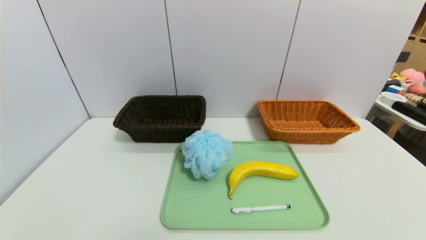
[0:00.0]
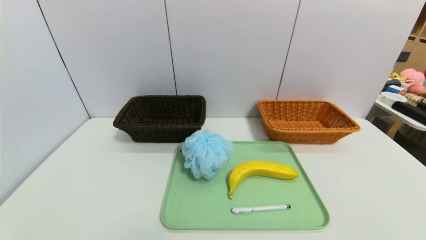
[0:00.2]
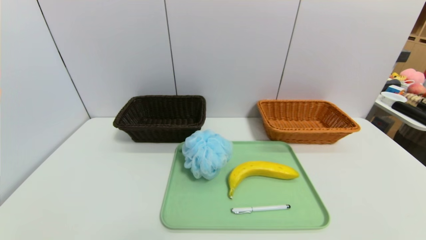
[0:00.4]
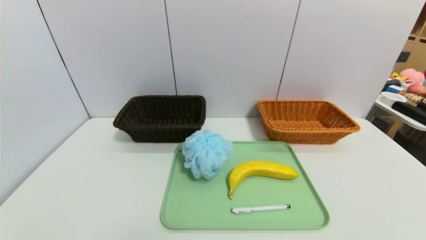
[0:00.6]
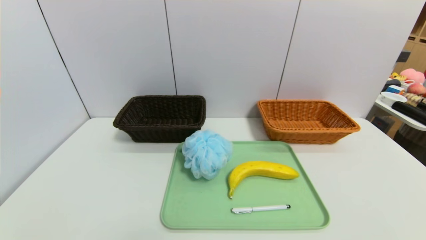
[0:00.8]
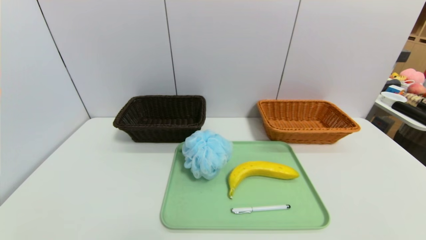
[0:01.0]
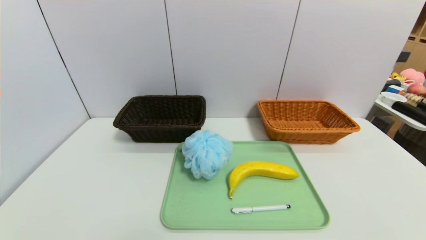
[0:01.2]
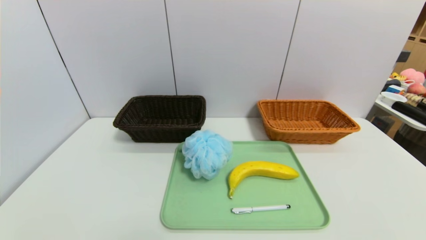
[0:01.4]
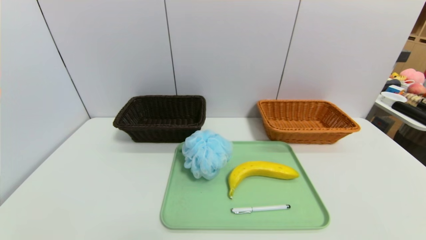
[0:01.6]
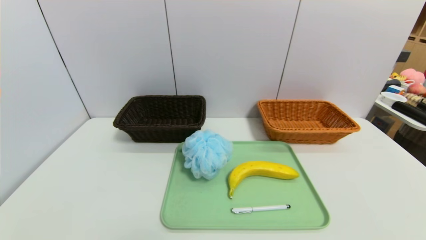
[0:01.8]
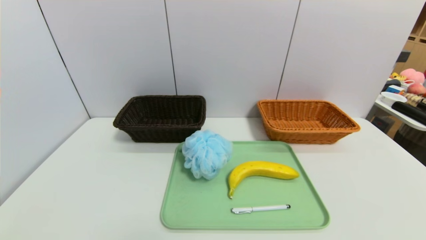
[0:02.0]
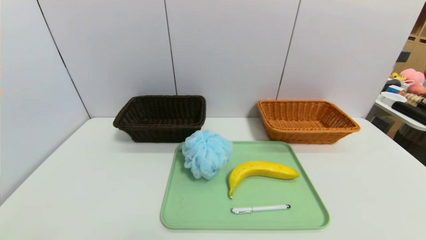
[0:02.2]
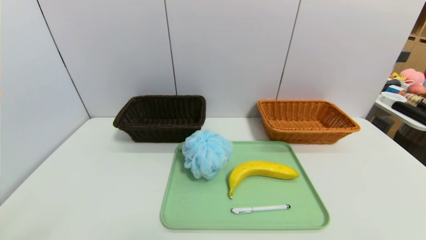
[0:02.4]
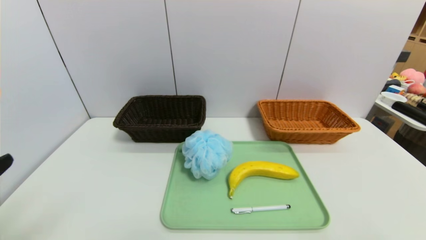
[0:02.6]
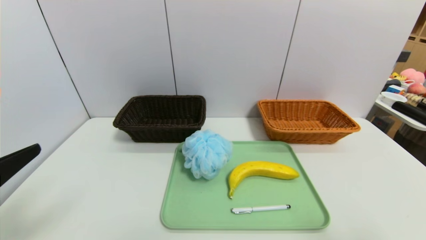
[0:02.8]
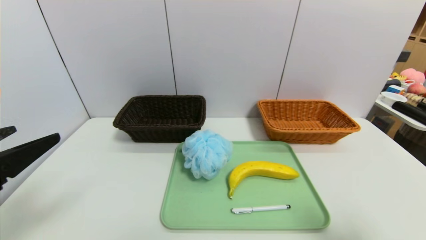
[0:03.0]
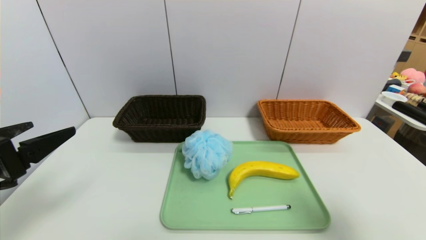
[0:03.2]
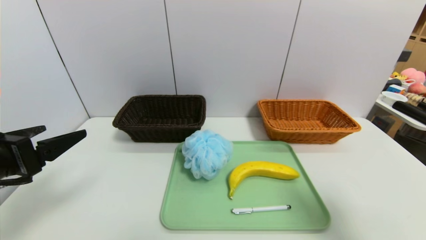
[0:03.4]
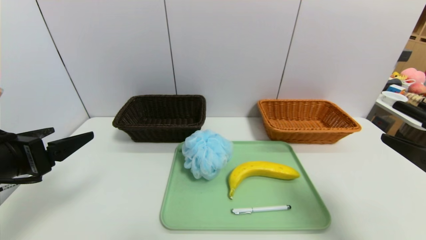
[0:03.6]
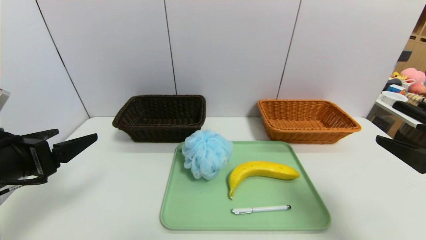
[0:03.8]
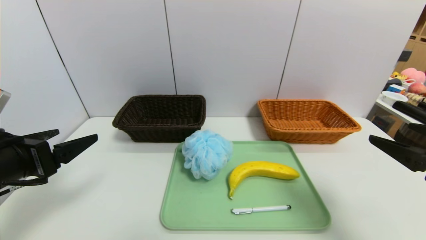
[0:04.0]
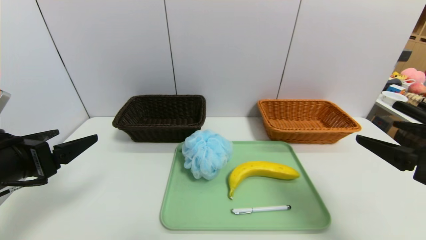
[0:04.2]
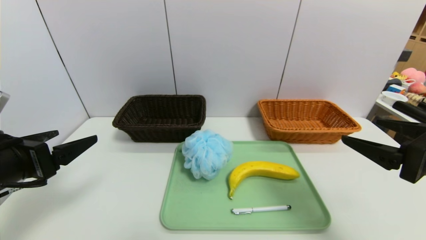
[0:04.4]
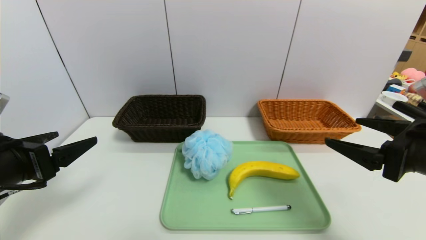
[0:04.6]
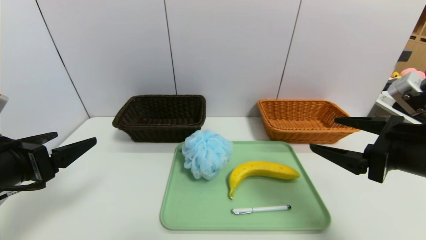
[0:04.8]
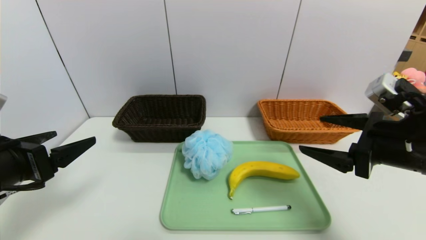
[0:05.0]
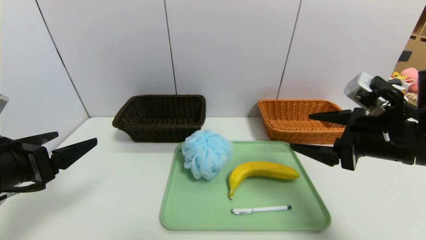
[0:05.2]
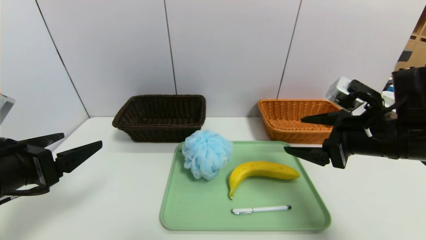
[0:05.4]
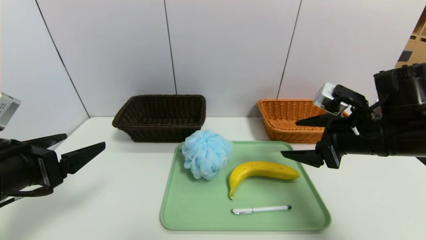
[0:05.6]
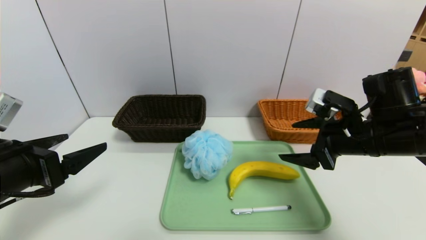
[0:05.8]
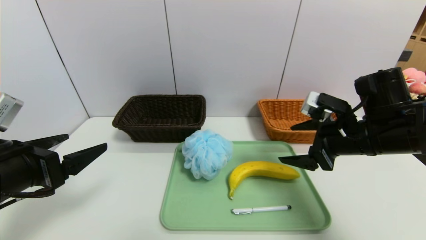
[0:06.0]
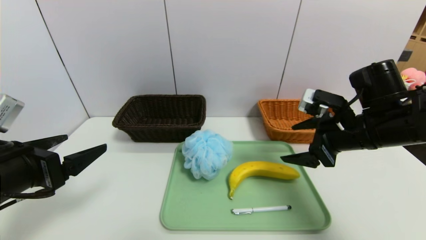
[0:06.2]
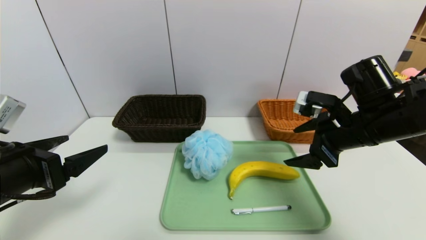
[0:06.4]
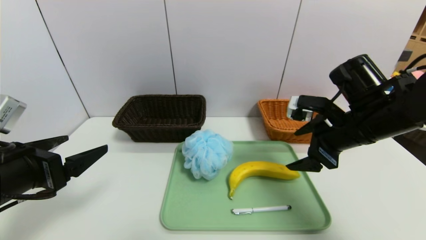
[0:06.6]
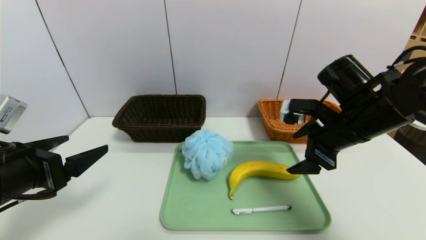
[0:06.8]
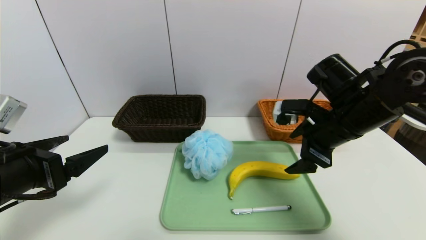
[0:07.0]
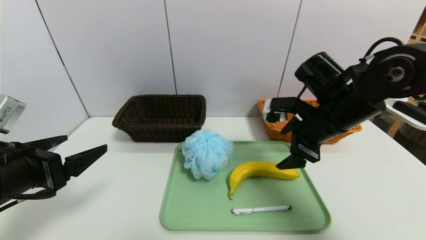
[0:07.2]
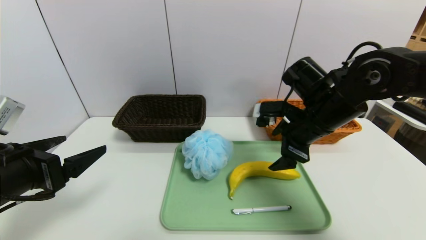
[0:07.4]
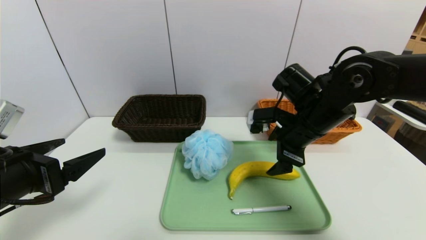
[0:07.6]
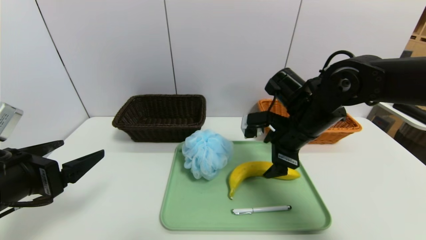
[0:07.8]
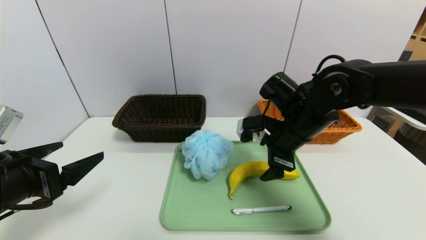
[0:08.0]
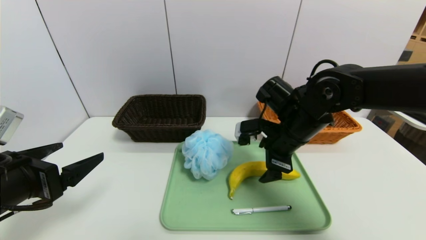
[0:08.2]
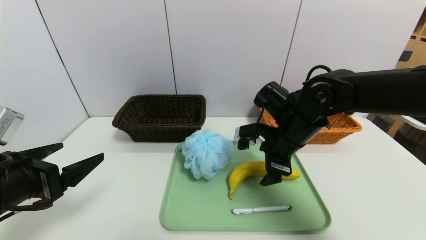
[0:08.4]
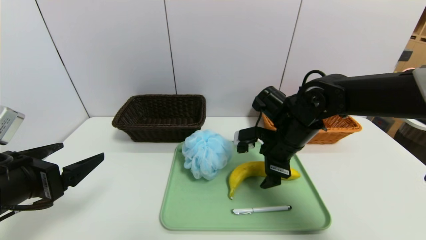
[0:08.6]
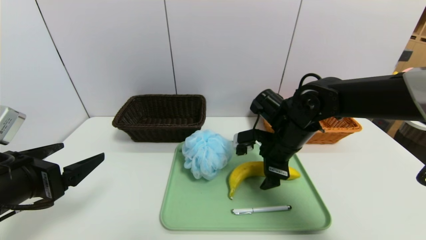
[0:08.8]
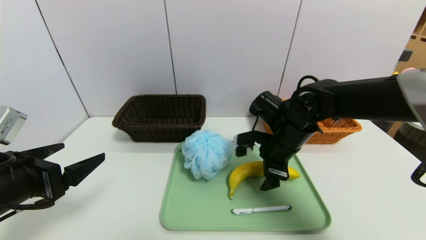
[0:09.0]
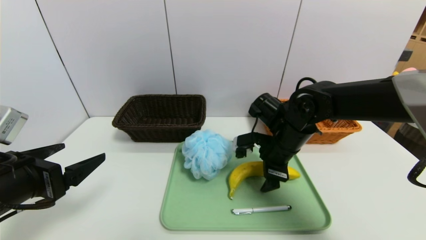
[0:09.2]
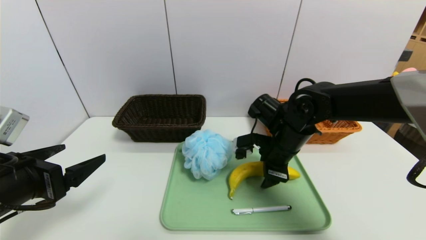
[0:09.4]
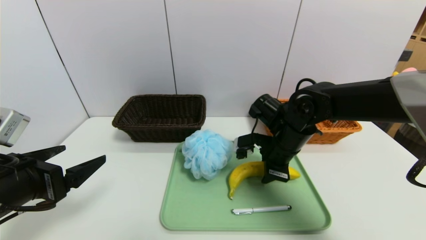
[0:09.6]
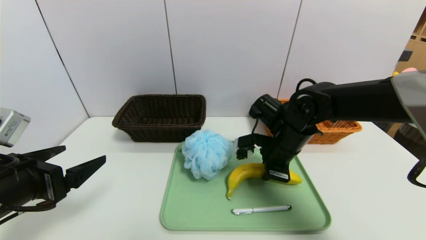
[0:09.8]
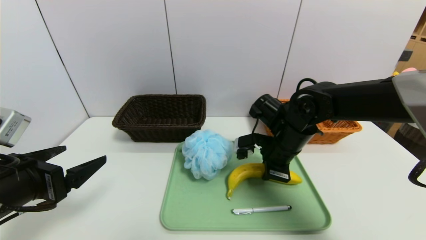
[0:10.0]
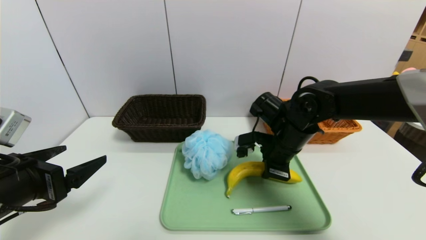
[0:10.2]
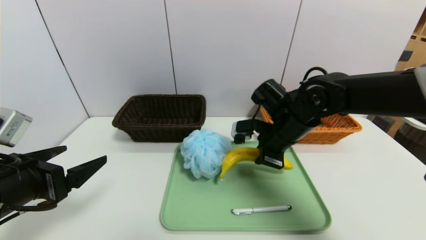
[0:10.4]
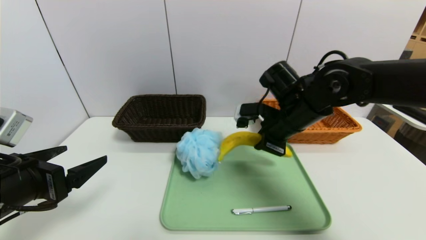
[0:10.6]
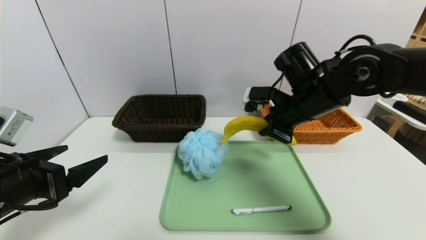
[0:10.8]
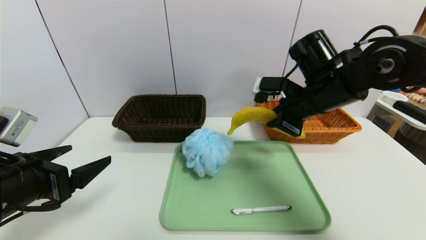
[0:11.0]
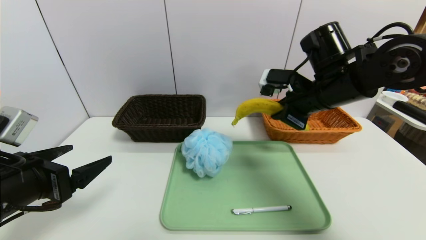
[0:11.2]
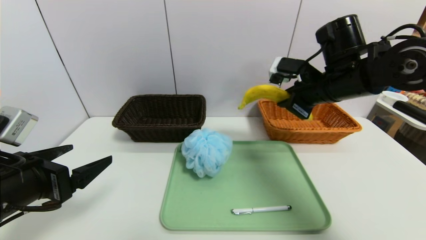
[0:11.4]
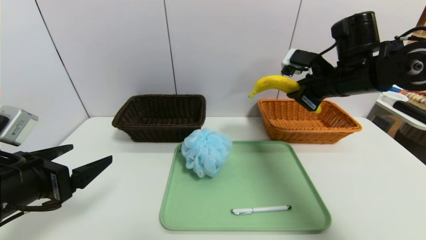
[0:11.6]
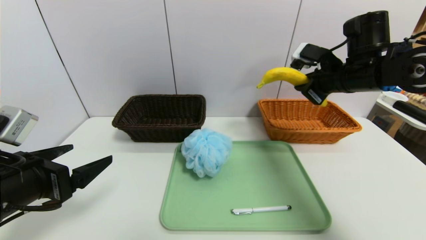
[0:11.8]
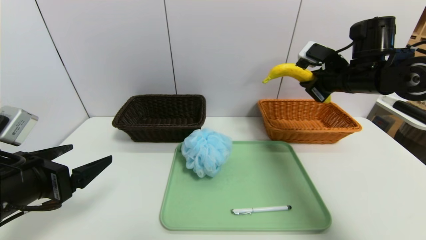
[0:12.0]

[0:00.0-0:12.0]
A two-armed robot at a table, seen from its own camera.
Task of the whole recording: place the food in the right basket with the right gripper, and place the non food items in the left basket with the left gripper.
0:00.0 to 0:01.6: The two grippers keep their place.
0:01.6 to 0:03.0: The two grippers go about 20 cm upward and forward.
0:03.0 to 0:04.4: The right gripper goes roughly 10 cm forward. Meanwhile the left gripper moves forward, roughly 5 cm.
0:04.4 to 0:06.0: The right gripper travels forward by some 10 cm.
0:06.0 to 0:07.6: The right gripper heads to the left, covering approximately 10 cm.
0:07.6 to 0:09.0: The right gripper shifts about 5 cm downward.
0:09.0 to 0:10.4: The right gripper closes.
0:10.4 to 0:12.0: The right gripper shifts roughly 15 cm to the right and upward.

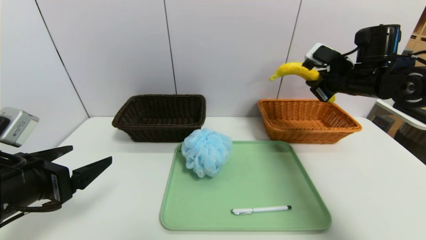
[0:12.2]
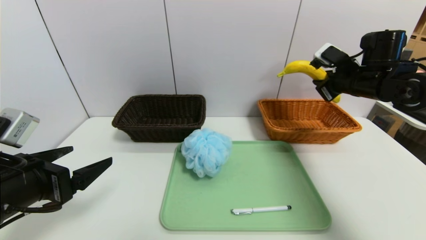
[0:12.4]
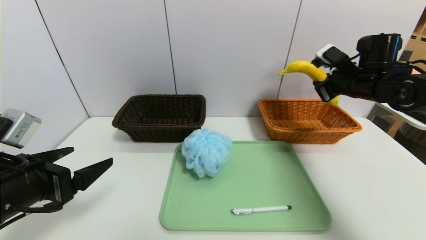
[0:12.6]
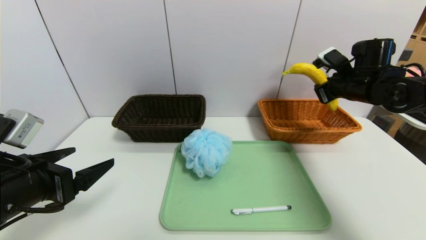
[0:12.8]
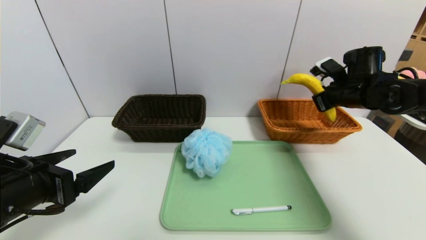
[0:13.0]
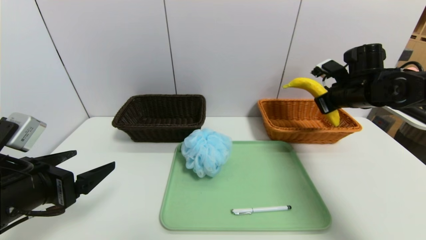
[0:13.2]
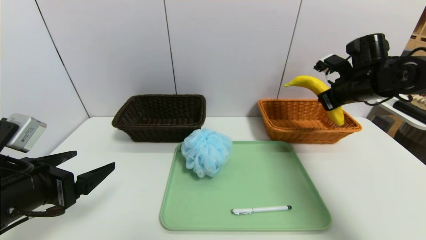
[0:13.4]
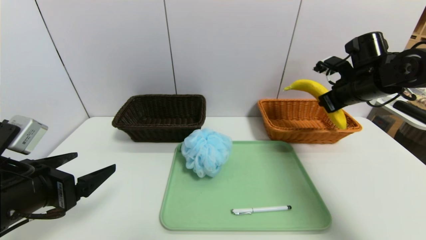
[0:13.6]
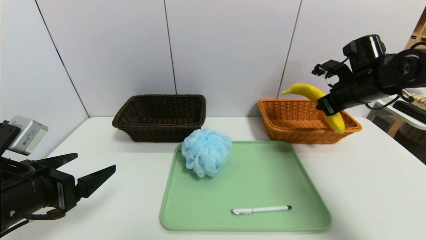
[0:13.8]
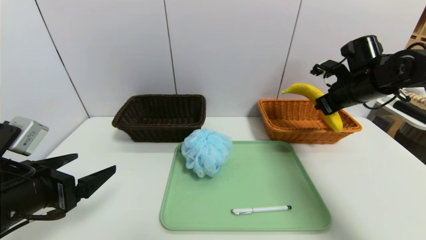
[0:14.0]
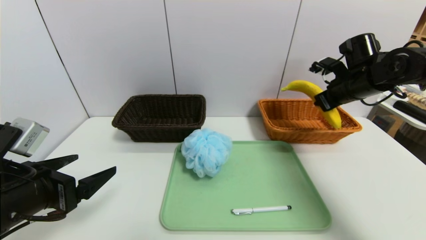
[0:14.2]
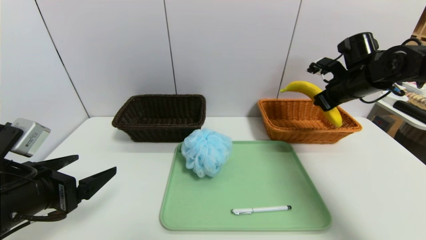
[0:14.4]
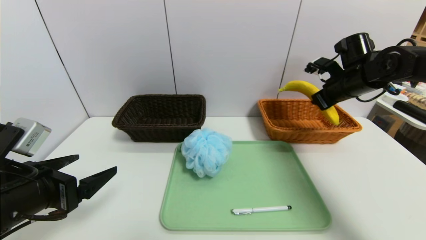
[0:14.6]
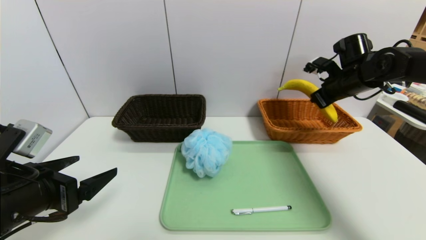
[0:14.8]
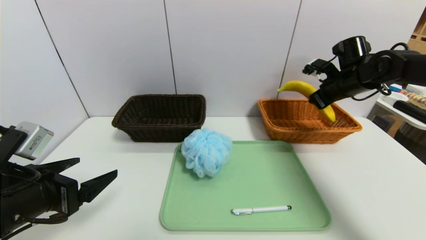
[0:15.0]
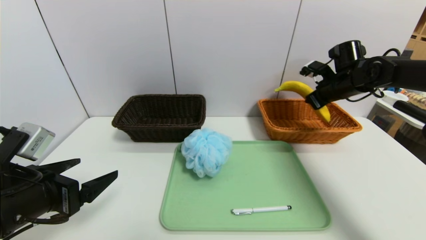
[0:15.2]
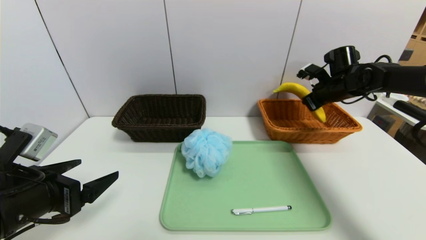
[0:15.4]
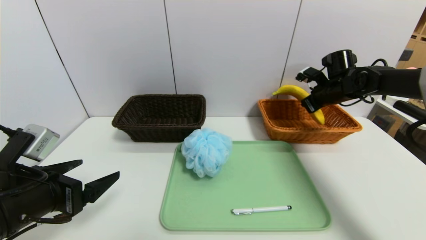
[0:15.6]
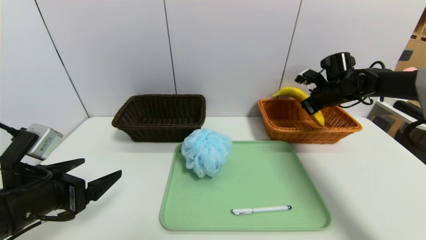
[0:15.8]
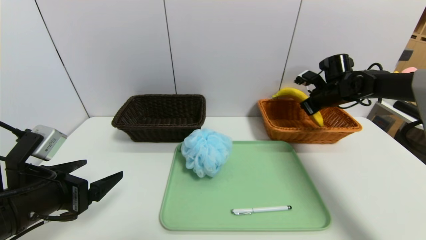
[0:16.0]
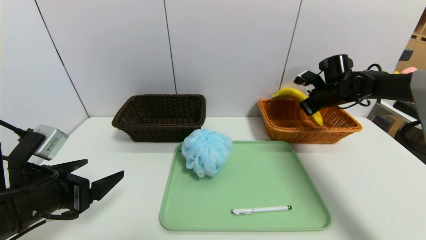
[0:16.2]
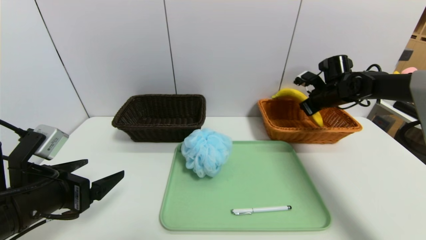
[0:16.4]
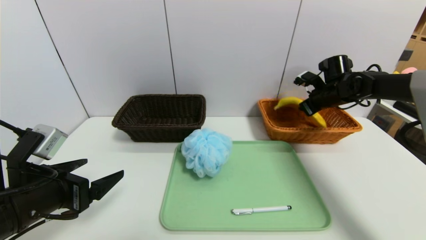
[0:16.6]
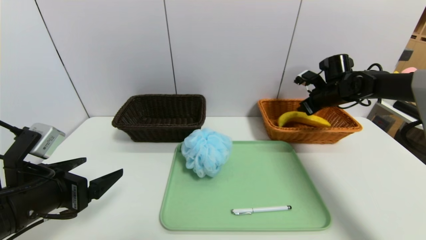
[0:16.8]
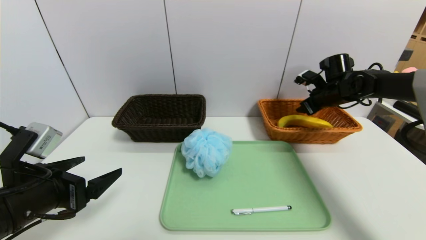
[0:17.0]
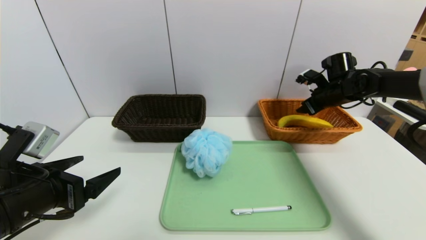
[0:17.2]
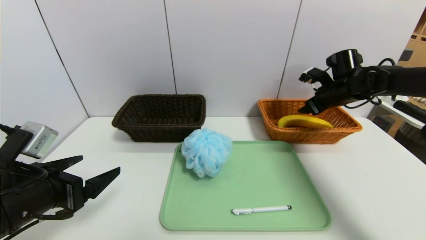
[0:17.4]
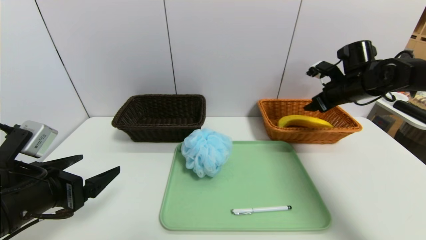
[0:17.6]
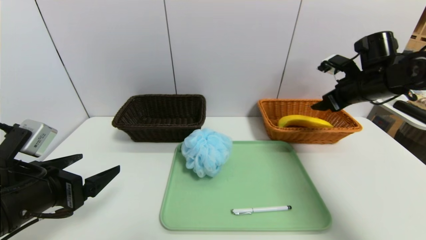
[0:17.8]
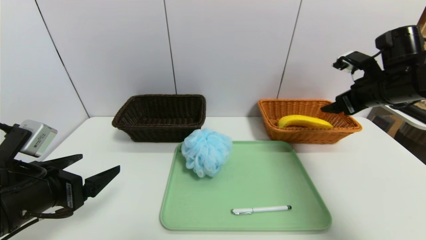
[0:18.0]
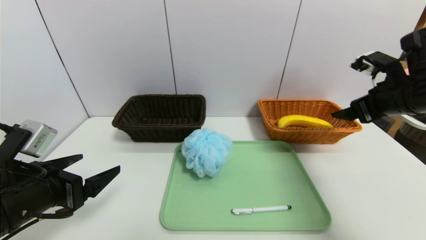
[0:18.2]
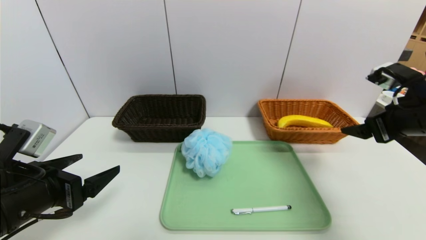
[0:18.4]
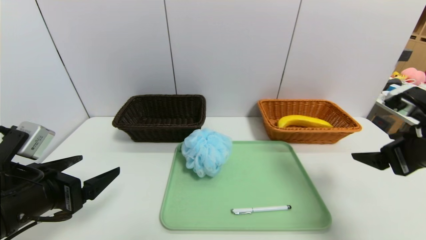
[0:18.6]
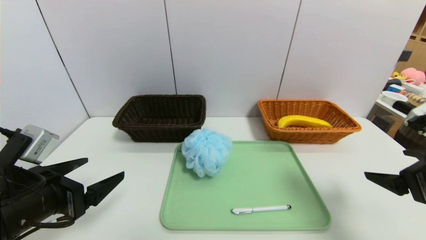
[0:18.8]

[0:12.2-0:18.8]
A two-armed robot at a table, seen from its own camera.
Task of the whole recording: place the food in the right basket with the right gripper, and place the non food items in the left basket with the left gripper.
Step, 0:12.2 to 0:17.0: Grasp the banana and put it in the right basket.
0:13.8 to 0:15.4: The right gripper moves forward, some 10 cm.
0:15.4 to 0:17.2: The right gripper opens up.
0:17.2 to 0:18.8: The right gripper is displaced backward by roughly 30 cm.
